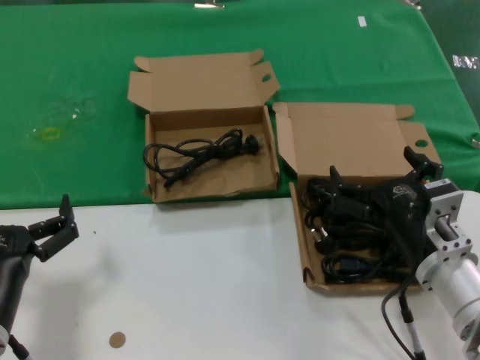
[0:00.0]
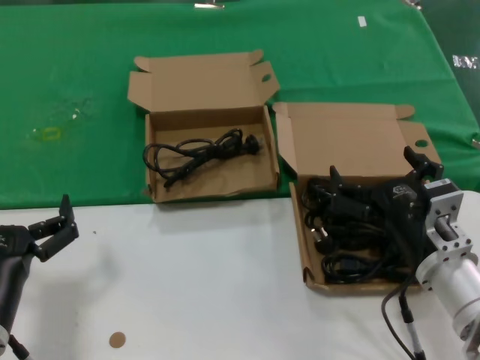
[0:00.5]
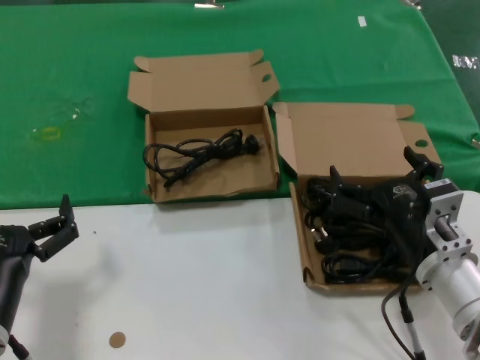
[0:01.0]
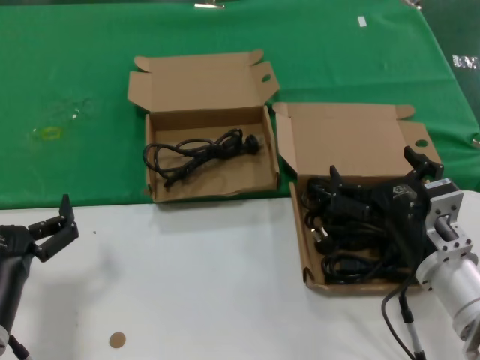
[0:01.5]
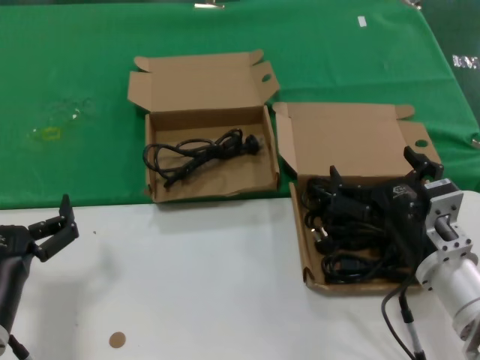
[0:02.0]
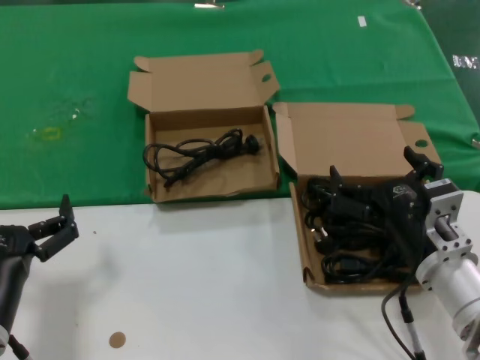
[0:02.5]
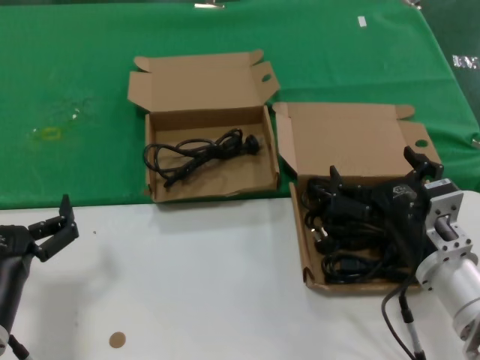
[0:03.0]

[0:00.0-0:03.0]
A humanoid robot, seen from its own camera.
Task of the whole recording: take the parts from the box containing them and put them into an empty box.
0:00.0 to 0:03.0: Neither hand changes place.

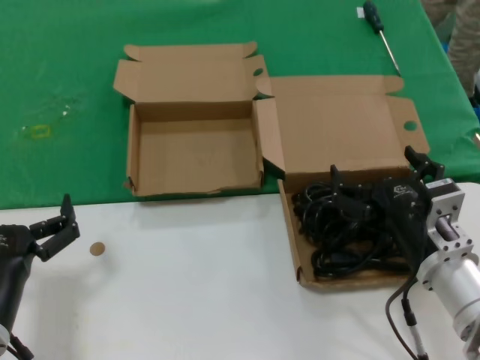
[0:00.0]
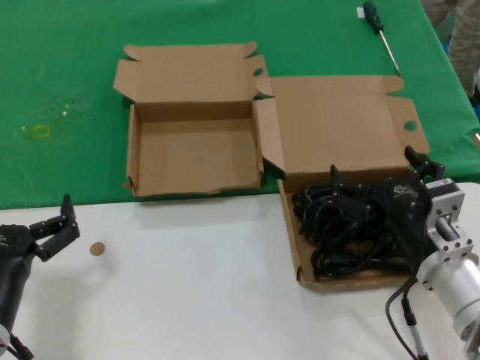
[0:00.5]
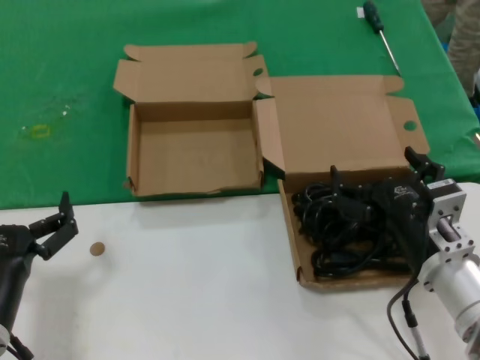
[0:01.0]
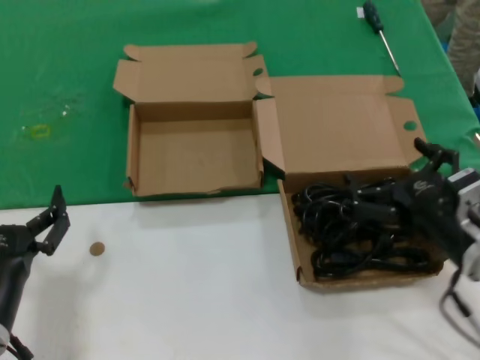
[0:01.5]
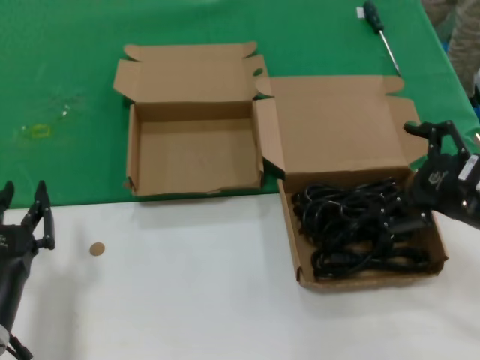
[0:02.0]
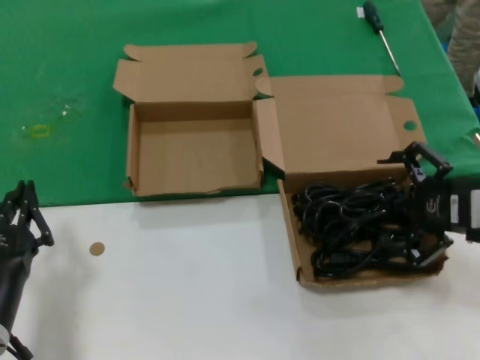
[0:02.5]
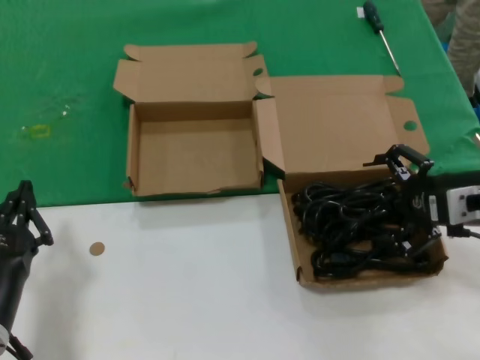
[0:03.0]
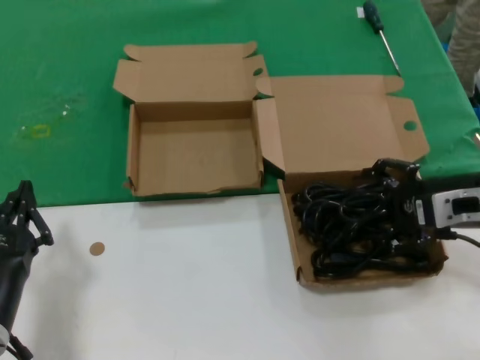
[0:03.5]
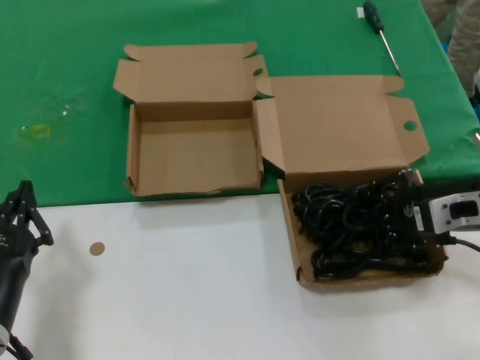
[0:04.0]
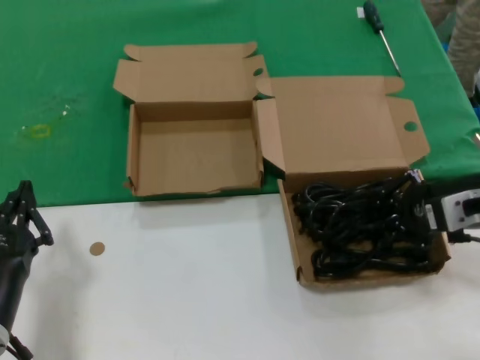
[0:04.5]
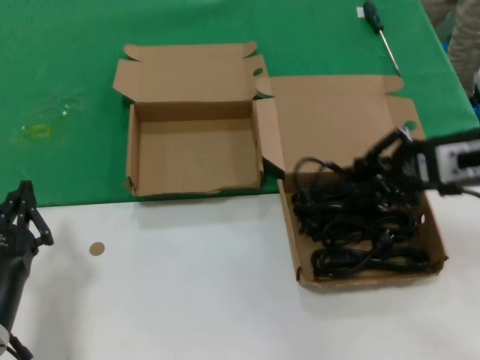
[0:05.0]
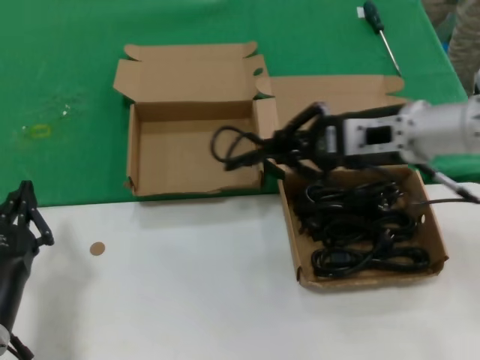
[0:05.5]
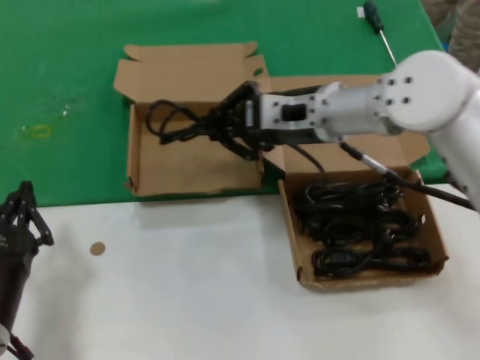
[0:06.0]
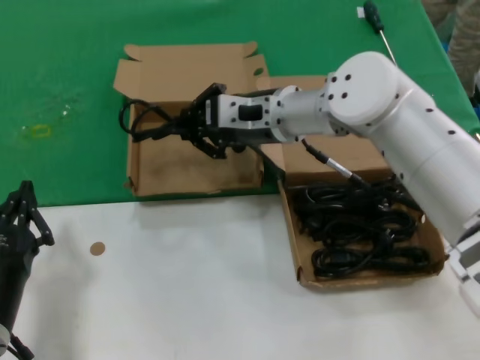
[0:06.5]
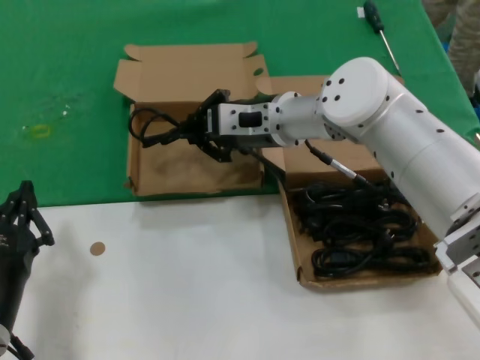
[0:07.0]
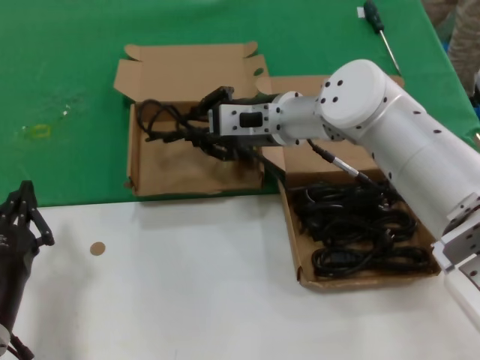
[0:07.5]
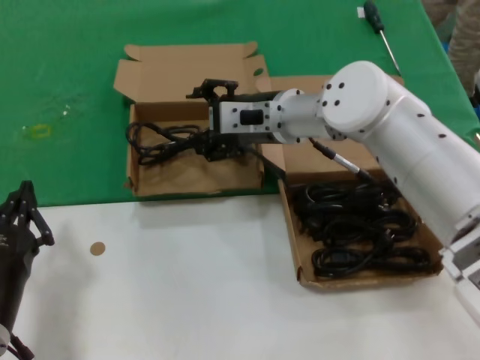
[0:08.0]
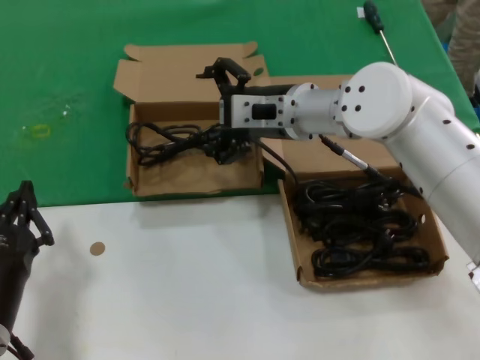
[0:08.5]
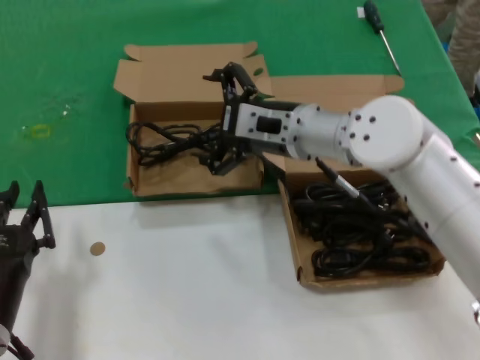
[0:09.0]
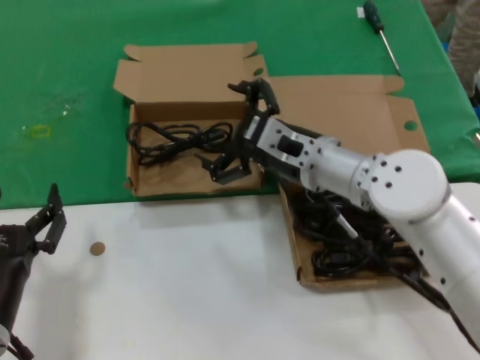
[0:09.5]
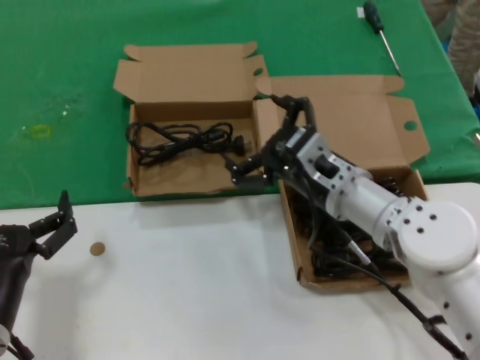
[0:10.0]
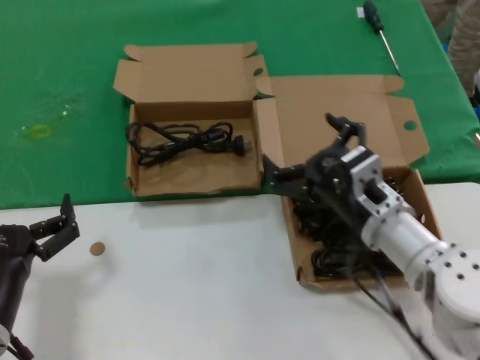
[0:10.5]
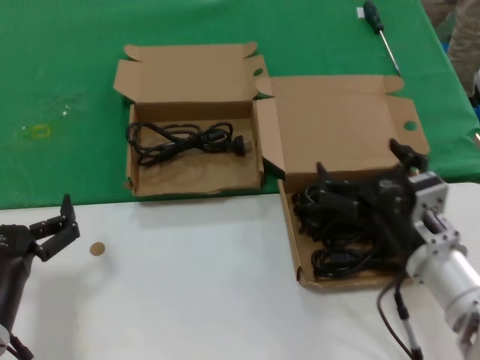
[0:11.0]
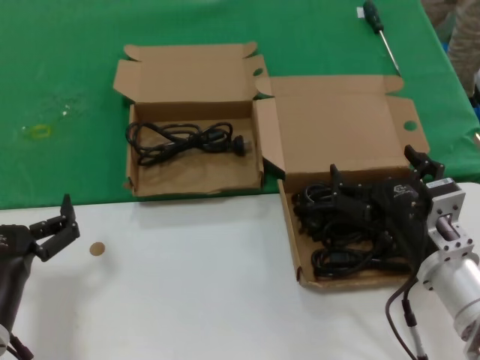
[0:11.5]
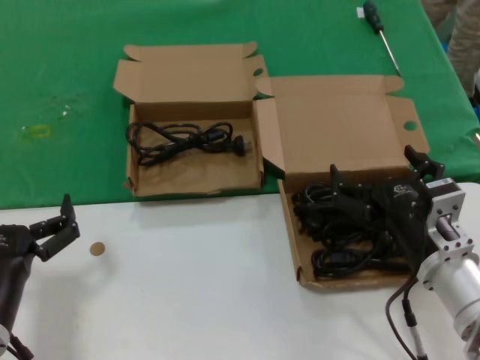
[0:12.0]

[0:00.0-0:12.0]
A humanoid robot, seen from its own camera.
Task of the whole recording: take the parts from the box containing them and put them into an empty box.
Step, 0:00.0 to 0:04.0: Grasp the data cable.
Step, 0:04.5 to 0:08.0: Place the data cable in the another box.
0:00.0 to 0:02.0: The right hand shifts about 15 cm to the right and upward.
0:02.0 to 0:04.0: The right hand moves forward, some 5 cm.
0:04.0 to 0:06.0: The right hand moves to the left and forward, some 20 cm.
0:06.0 to 0:08.0: The right hand moves to the left, some 5 cm.
0:08.0 to 0:10.0: The right hand heads backward, downward and to the right, covering some 15 cm.
0:10.0 to 0:12.0: The right hand shifts some 15 cm backward, to the right and downward.

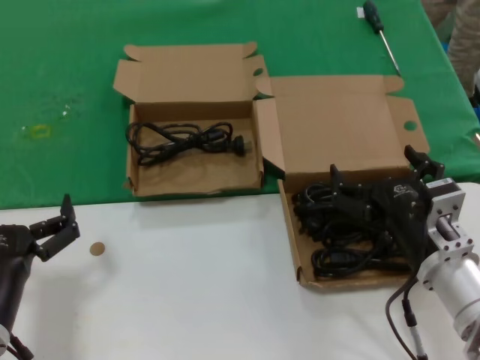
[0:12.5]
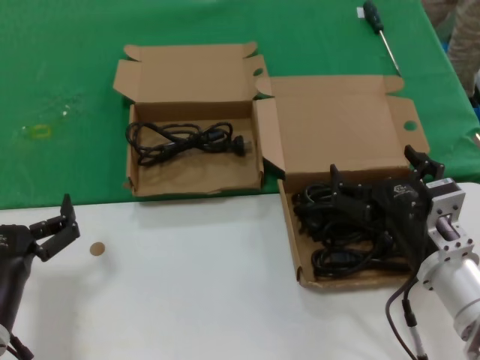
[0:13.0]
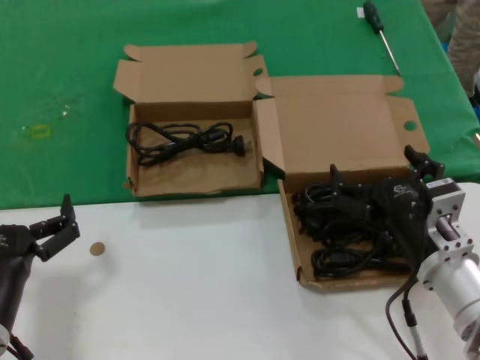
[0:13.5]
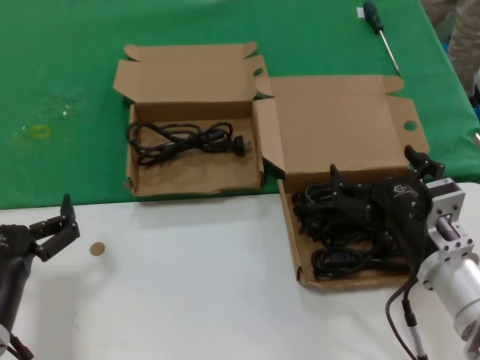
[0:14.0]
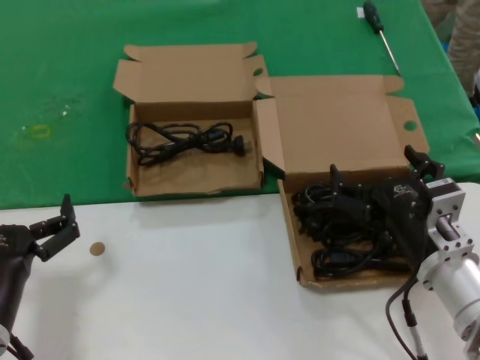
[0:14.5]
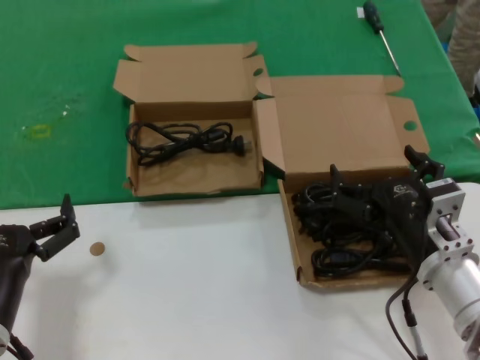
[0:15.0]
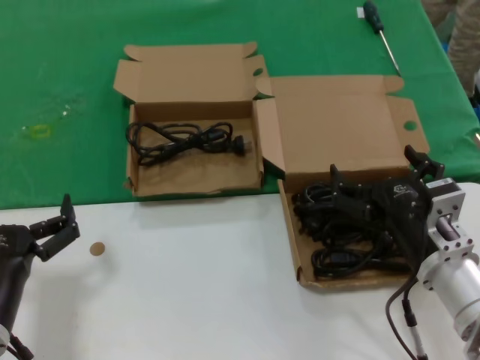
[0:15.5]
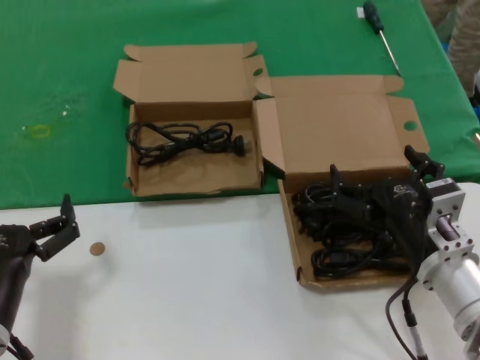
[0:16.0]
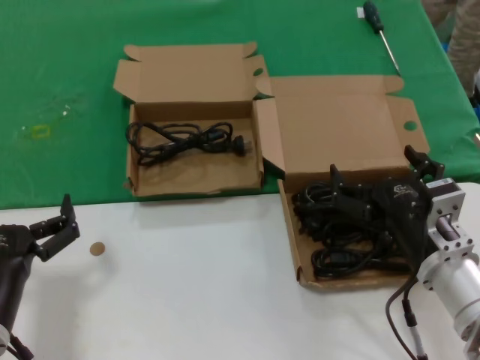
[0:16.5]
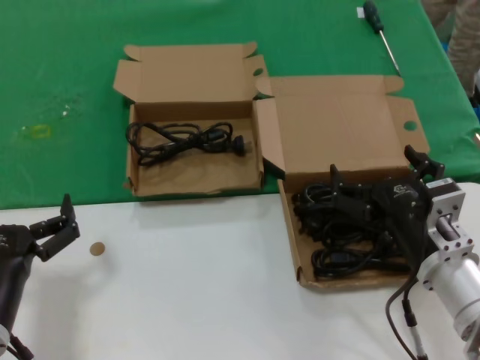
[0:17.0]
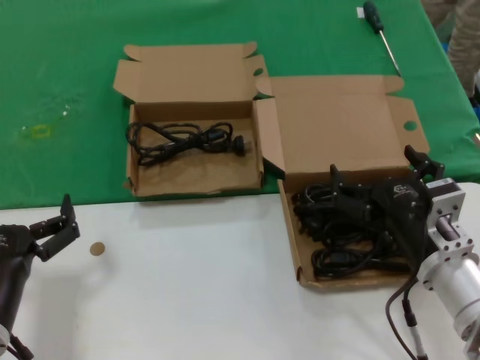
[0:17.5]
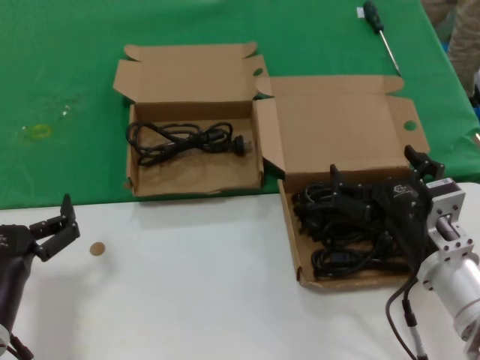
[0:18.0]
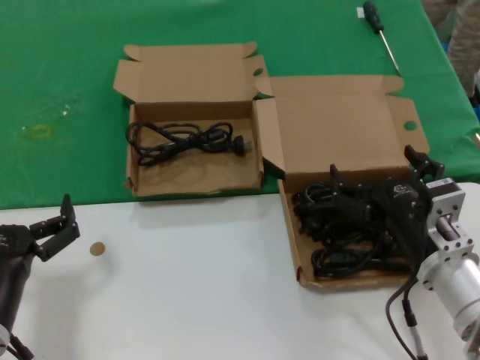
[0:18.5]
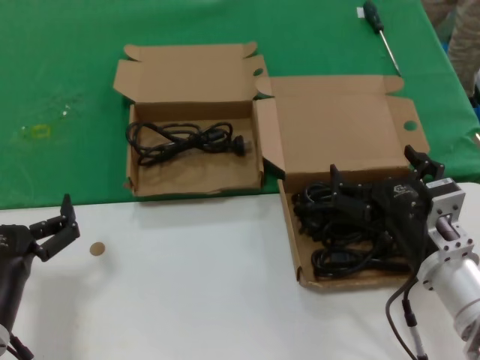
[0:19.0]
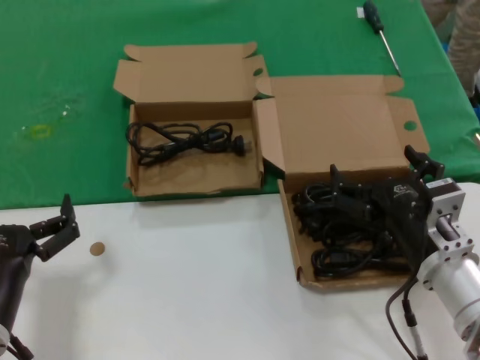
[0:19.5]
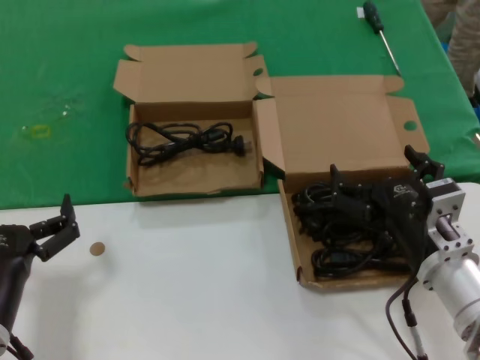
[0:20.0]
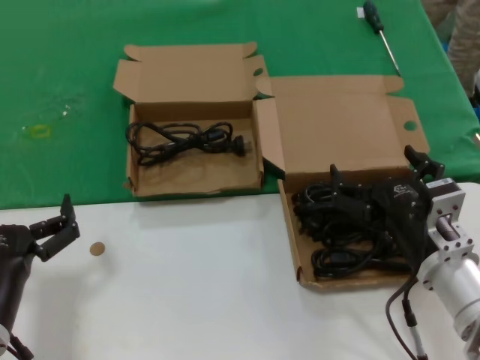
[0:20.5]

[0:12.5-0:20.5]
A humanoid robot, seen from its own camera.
Task of the whole recording: take the parts from the box containing them and put them into an empty box.
0:12.5 to 0:20.5: Neither hand changes place.

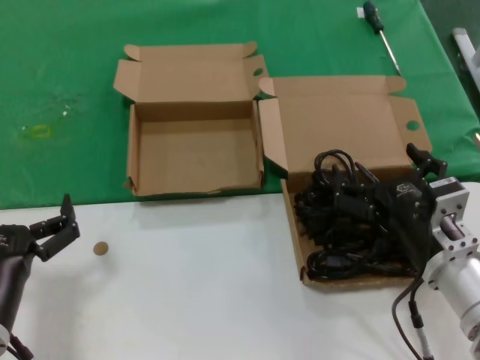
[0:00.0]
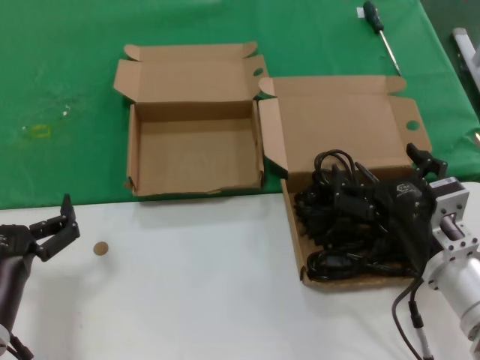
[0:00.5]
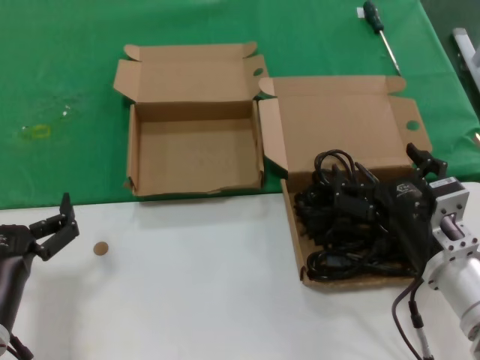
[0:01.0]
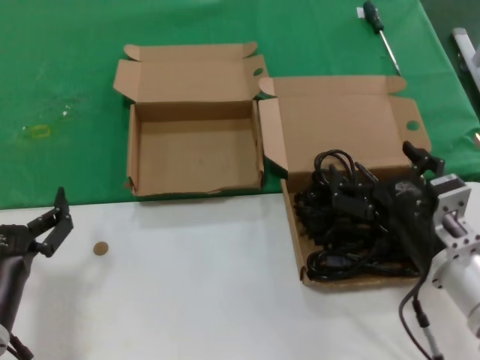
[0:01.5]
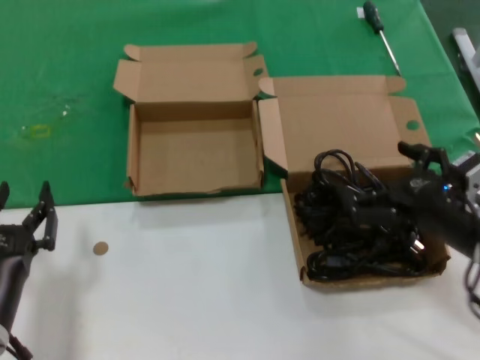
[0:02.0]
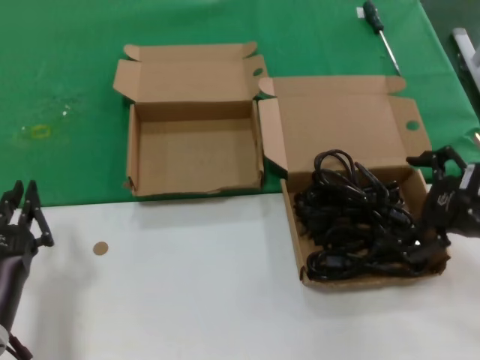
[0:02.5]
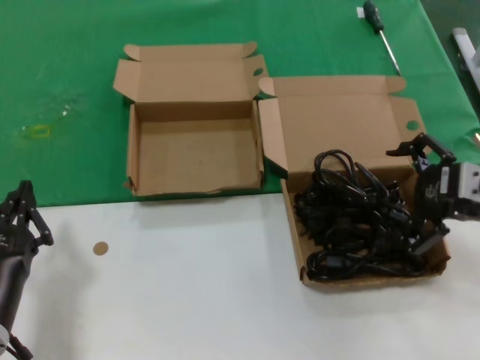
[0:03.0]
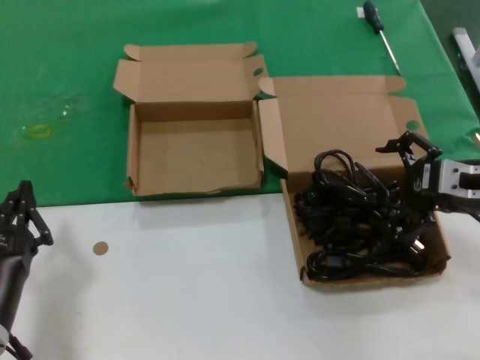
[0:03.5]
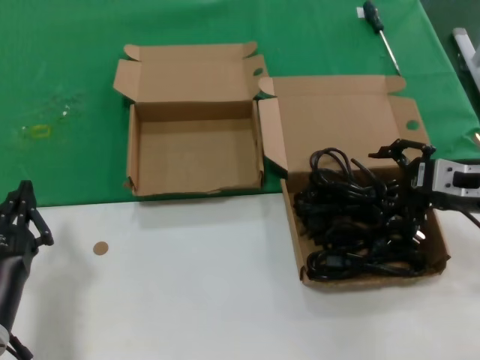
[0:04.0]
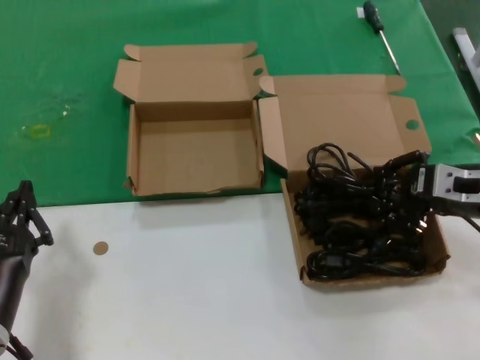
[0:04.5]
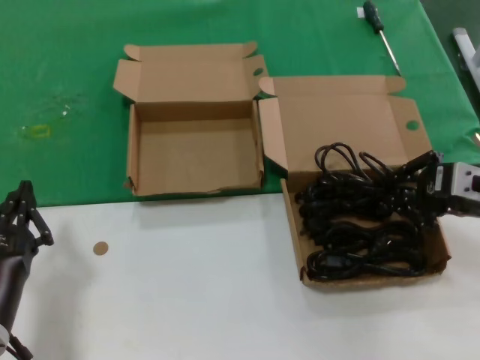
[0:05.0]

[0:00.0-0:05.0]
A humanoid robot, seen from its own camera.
Task of the whole recording: take the parts from the box containing them and put them into an empty box.
Step, 0:00.0 to 0:04.5: Grasp the data cable.
0:00.0 to 0:02.5: The right hand goes roughly 15 cm to the right and upward.
0:02.5 to 0:05.0: The right hand heads forward, covering approximately 5 cm.
